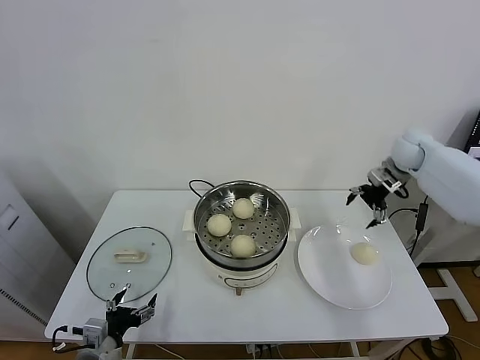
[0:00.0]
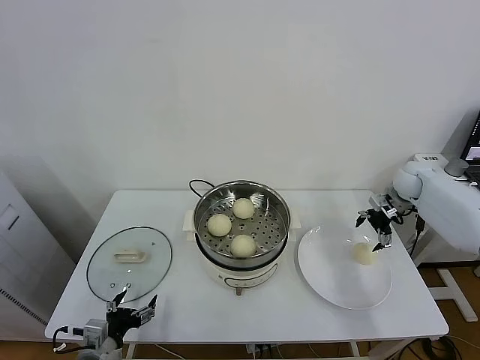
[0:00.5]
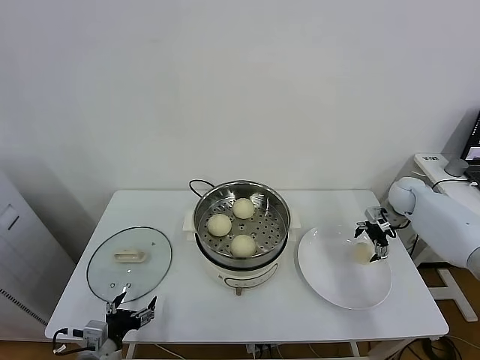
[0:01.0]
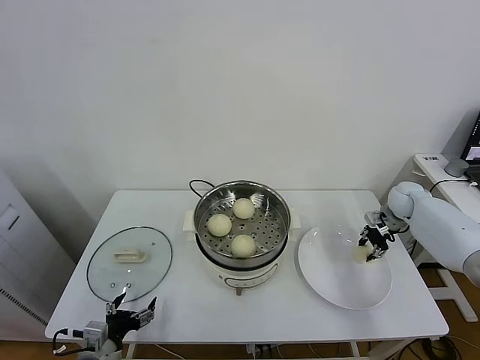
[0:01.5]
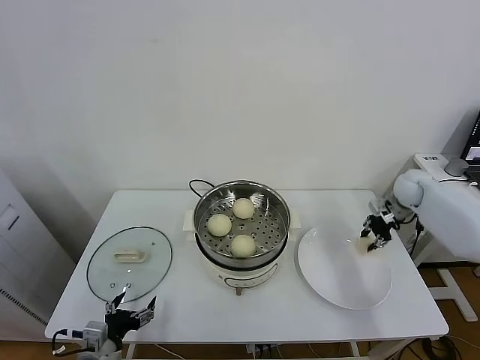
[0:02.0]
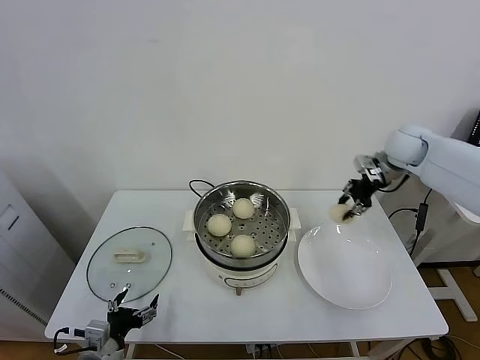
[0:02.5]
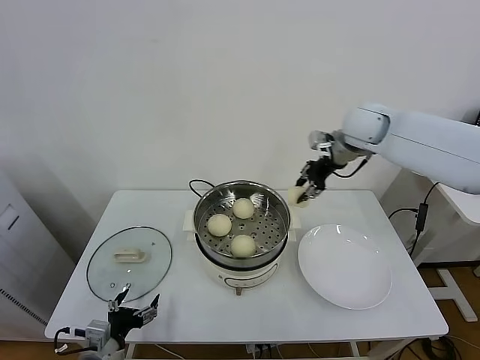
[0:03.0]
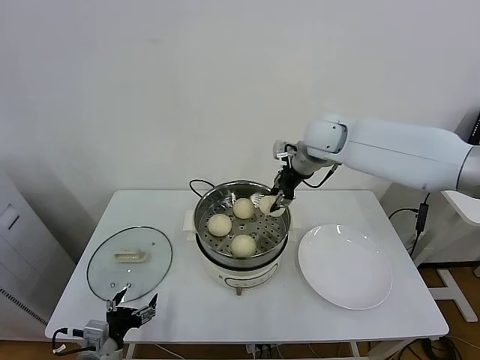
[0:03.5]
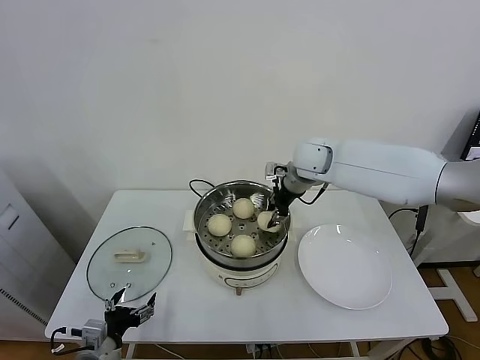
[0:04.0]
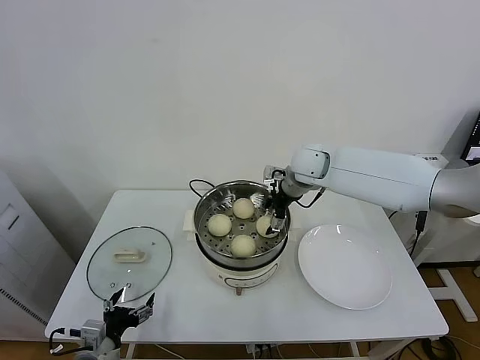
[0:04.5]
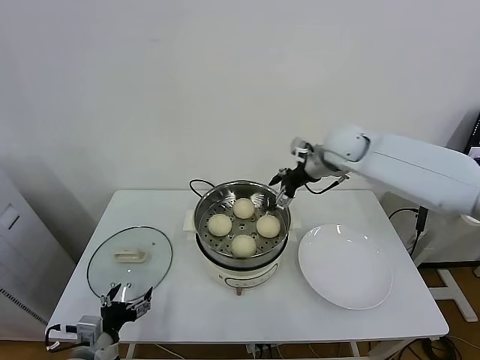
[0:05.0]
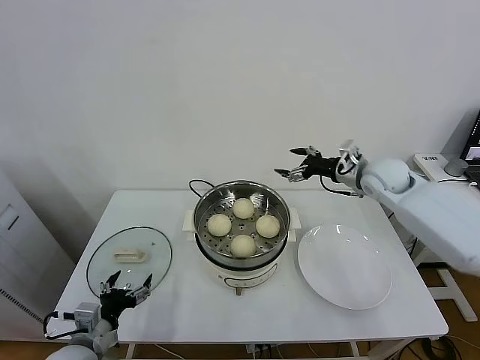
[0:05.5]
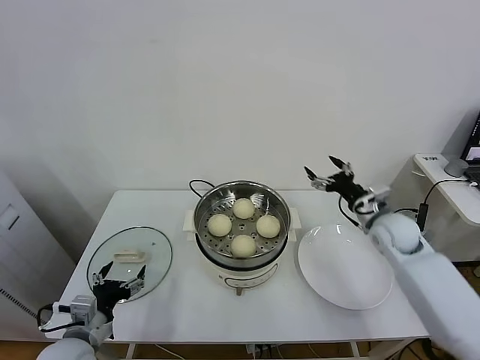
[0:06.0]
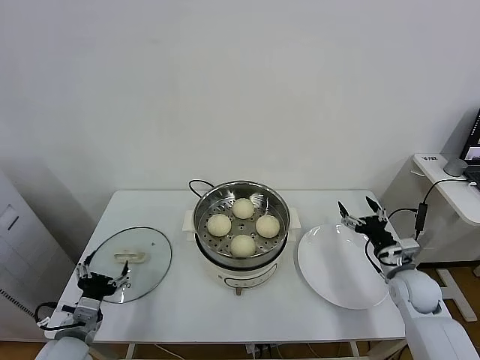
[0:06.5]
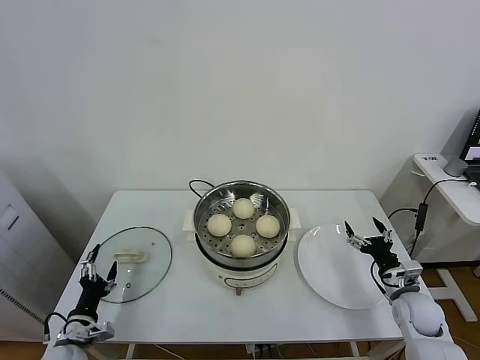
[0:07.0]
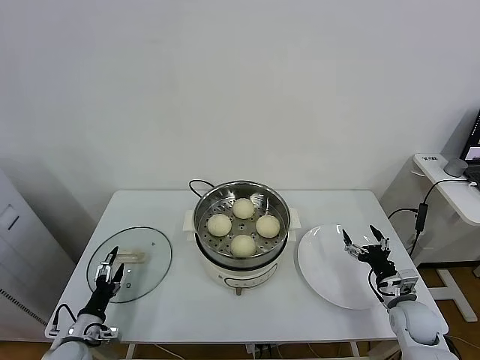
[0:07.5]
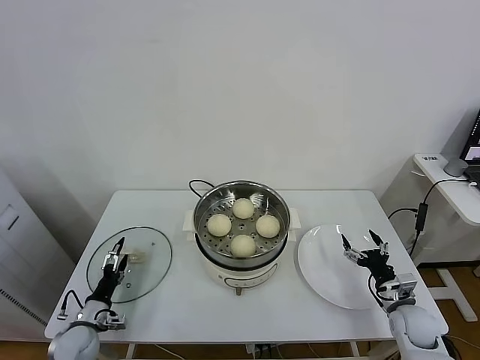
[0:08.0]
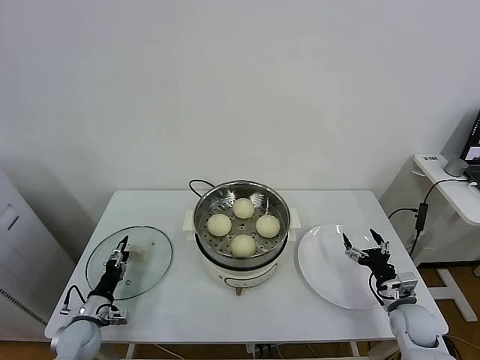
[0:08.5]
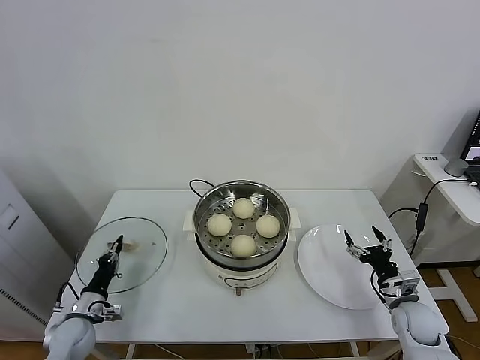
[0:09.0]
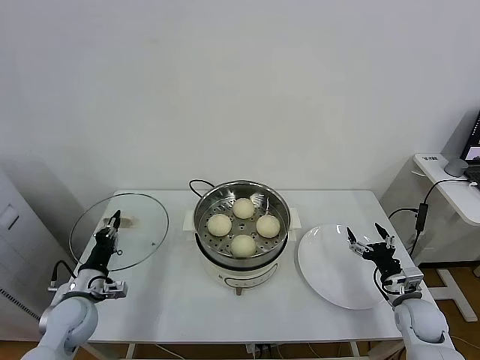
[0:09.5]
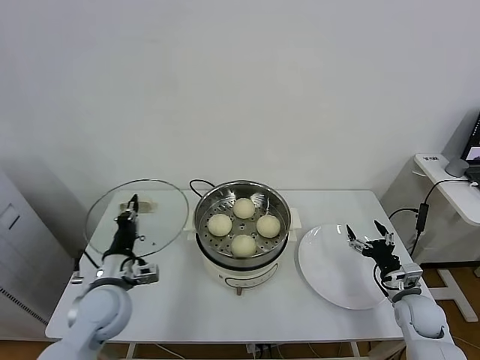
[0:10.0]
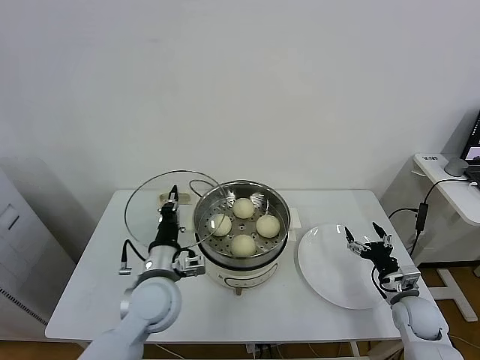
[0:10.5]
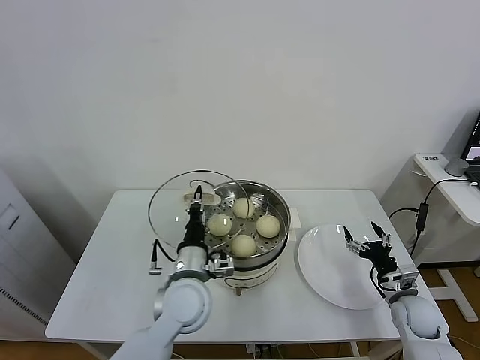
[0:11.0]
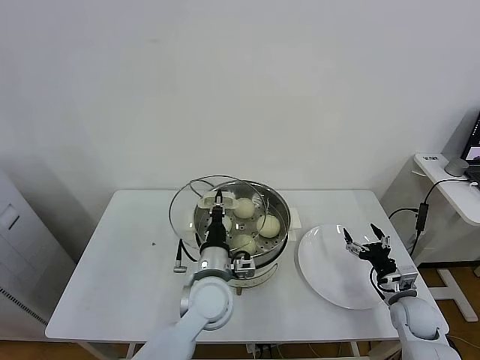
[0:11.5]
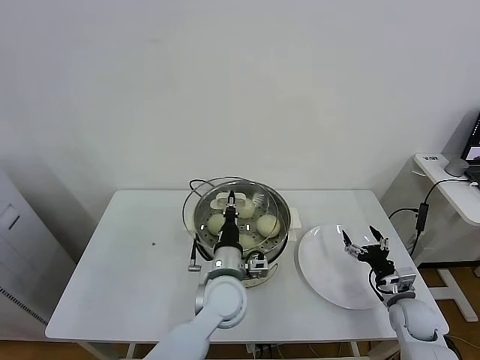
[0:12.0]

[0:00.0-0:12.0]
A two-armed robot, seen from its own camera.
Task of the whole recording: take steamed baozi put them in steamer.
Step, 0:02.0 to 0:04.5: Place the baozi on the steamer with right gripper.
Step, 0:05.0 to 0:09.0: Grasp the pot lid with left gripper.
0:00.0 to 0:02.0: The right gripper moves downward, roughly 10 cm, and closes up.
0:02.0 to 0:04.0: The right gripper travels to the left and upward by about 30 cm.
0:04.0 to 0:06.0: The right gripper heads to the right, downward and backward, covering about 25 cm, and opens its fingers, while the left gripper shifts by some 5 cm.
0:06.0 to 0:08.0: The left gripper travels downward, to the left and forward by some 20 cm, while the right gripper moves downward and backward, some 25 cm.
0:08.0 to 0:10.0: The left gripper moves upward and to the right, about 20 cm, and closes.
0:10.0 to 0:12.0: The left gripper is displaced to the right by some 25 cm.

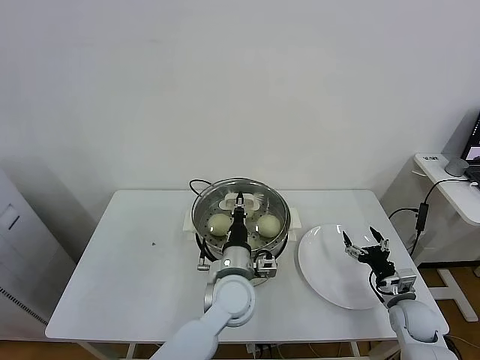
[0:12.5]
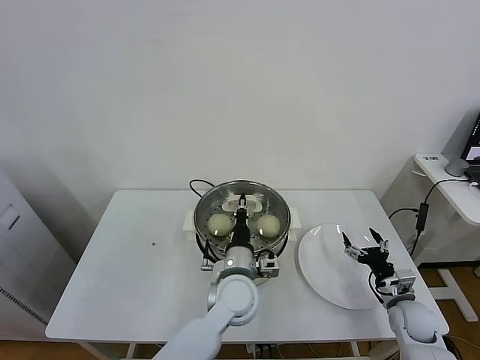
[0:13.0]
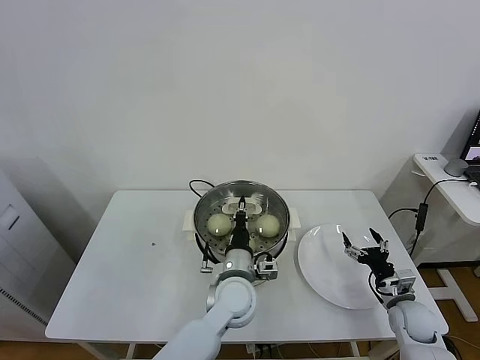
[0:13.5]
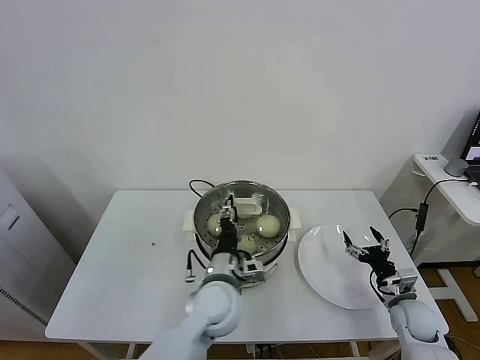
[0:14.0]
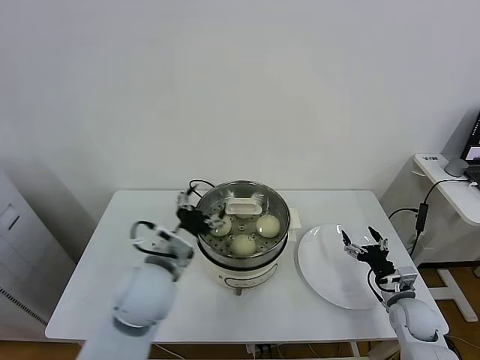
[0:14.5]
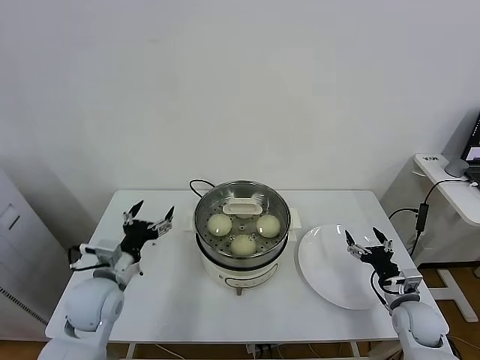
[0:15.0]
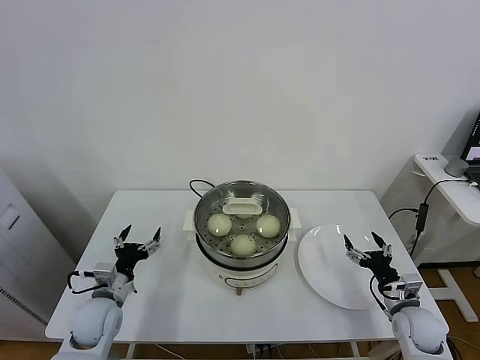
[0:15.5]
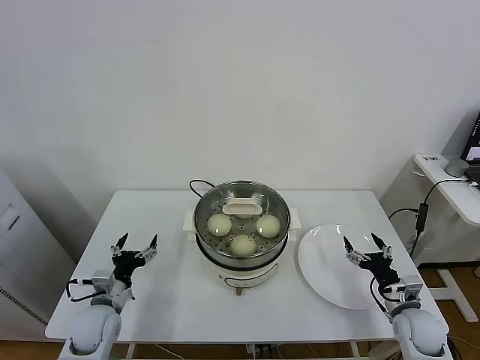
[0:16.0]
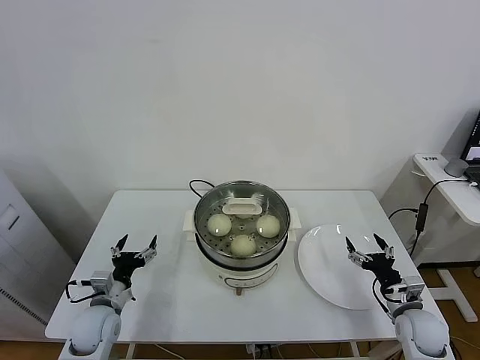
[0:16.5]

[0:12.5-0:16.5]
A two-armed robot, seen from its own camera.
Task of the whole recording: take steamed baozi put them in steamer.
0:12.5 to 0:14.5: The left gripper goes some 15 cm to the left and upward, and opens.
0:14.5 to 0:16.5: The left gripper shifts approximately 25 cm to the left and downward.
